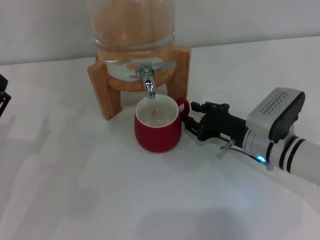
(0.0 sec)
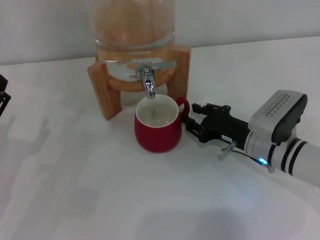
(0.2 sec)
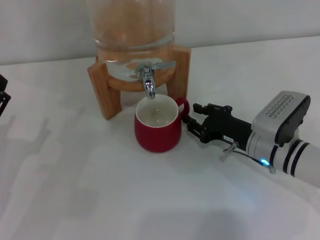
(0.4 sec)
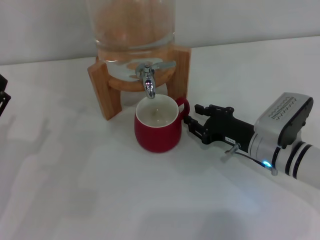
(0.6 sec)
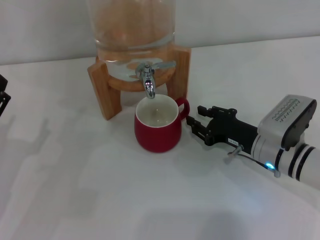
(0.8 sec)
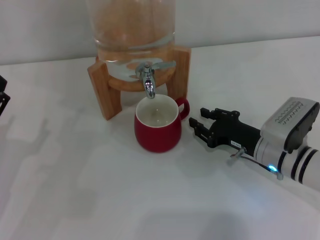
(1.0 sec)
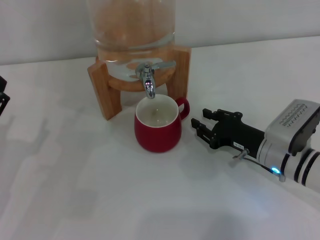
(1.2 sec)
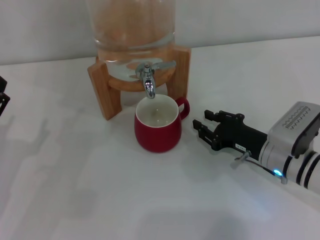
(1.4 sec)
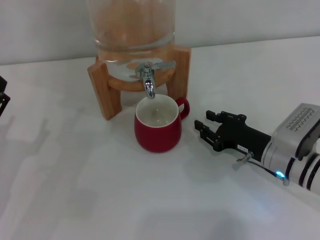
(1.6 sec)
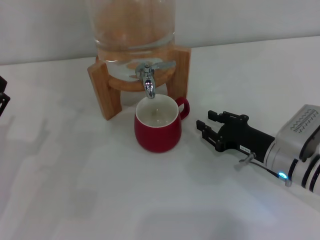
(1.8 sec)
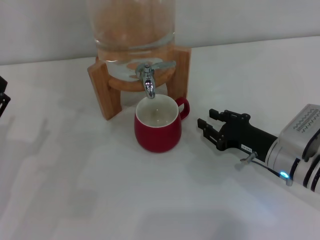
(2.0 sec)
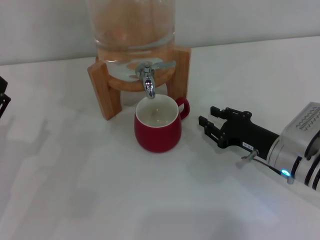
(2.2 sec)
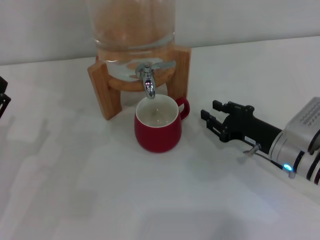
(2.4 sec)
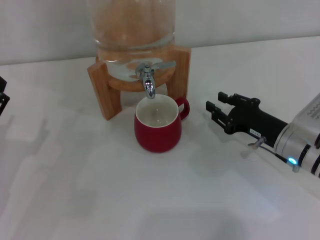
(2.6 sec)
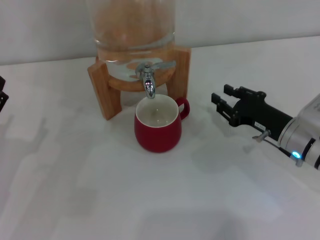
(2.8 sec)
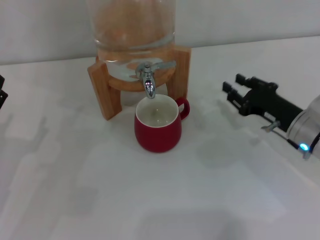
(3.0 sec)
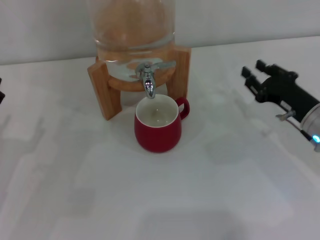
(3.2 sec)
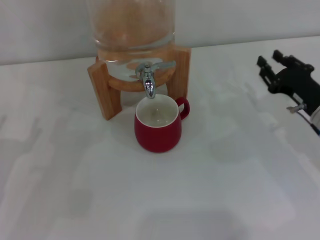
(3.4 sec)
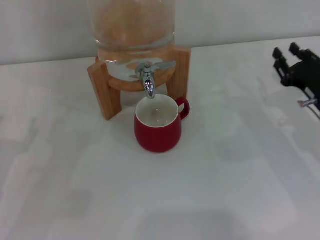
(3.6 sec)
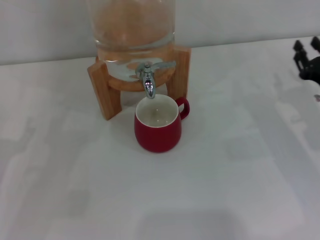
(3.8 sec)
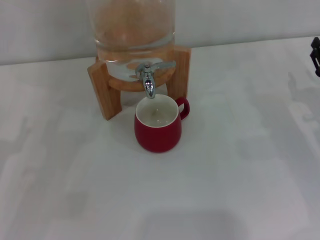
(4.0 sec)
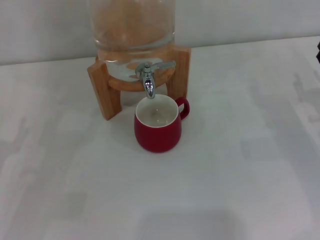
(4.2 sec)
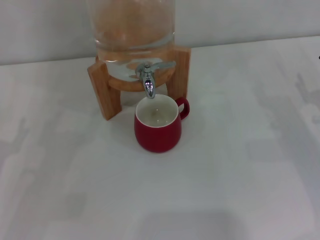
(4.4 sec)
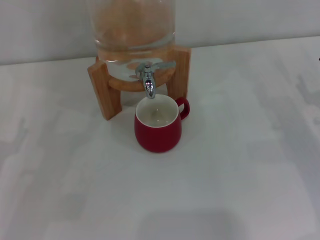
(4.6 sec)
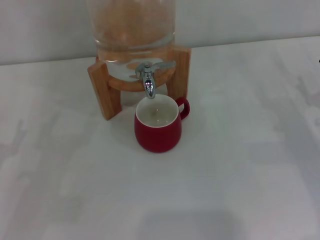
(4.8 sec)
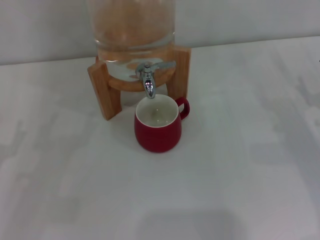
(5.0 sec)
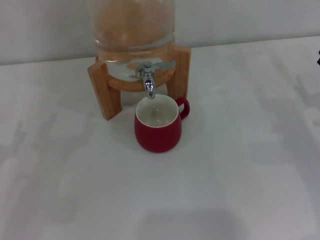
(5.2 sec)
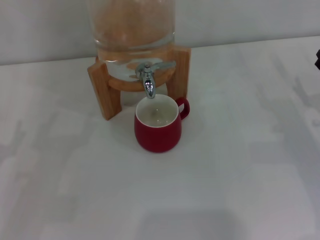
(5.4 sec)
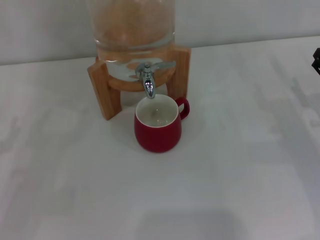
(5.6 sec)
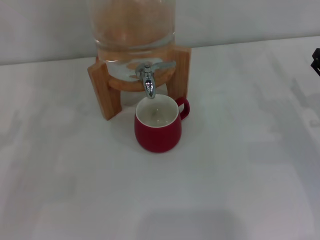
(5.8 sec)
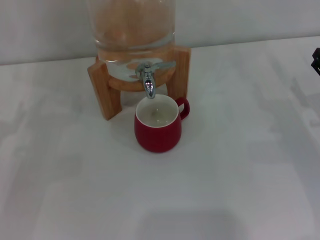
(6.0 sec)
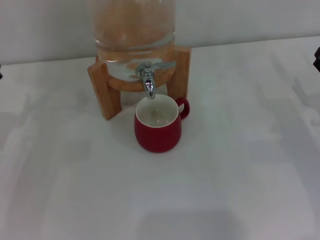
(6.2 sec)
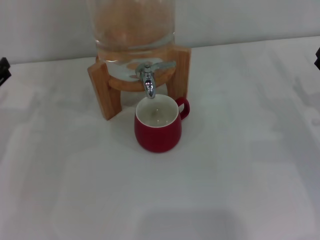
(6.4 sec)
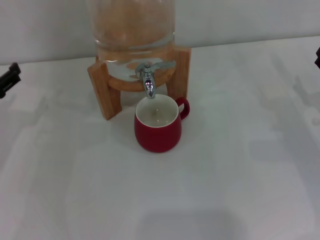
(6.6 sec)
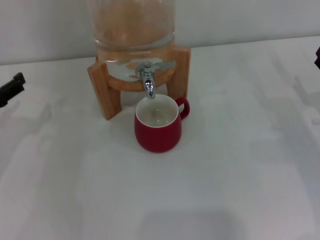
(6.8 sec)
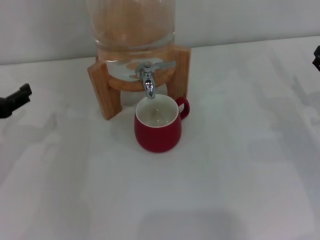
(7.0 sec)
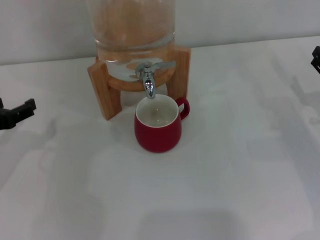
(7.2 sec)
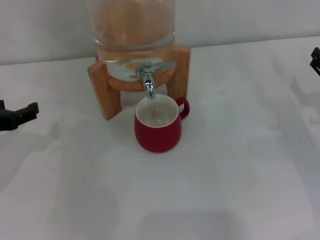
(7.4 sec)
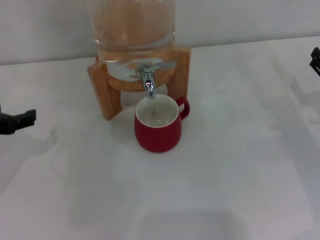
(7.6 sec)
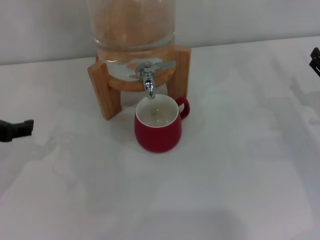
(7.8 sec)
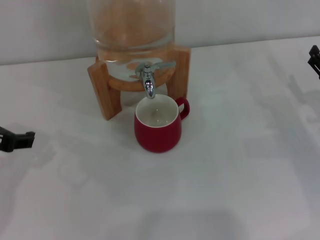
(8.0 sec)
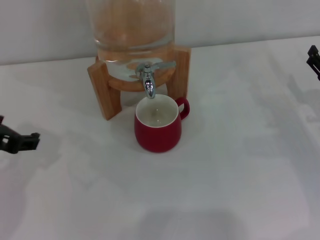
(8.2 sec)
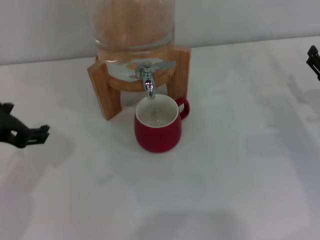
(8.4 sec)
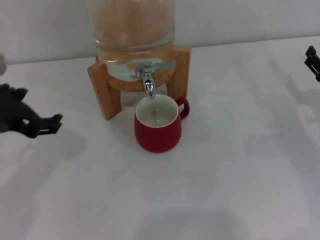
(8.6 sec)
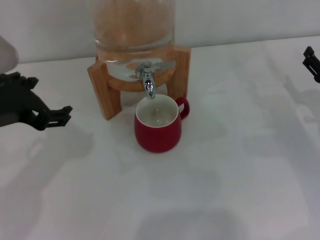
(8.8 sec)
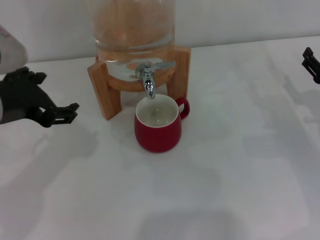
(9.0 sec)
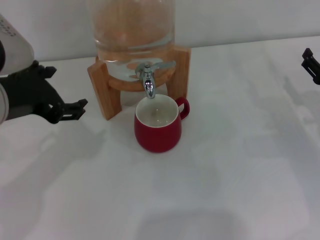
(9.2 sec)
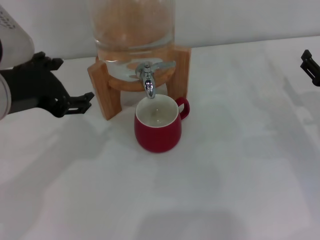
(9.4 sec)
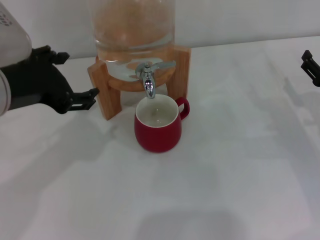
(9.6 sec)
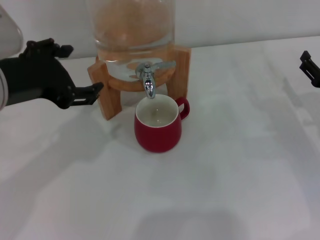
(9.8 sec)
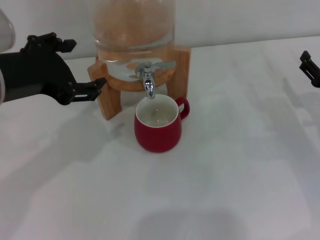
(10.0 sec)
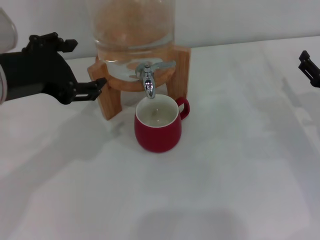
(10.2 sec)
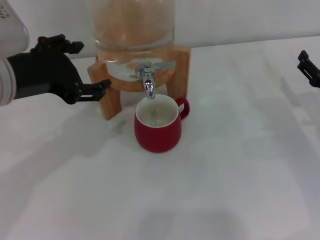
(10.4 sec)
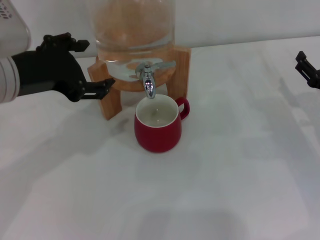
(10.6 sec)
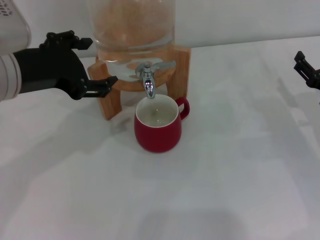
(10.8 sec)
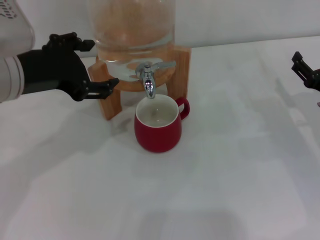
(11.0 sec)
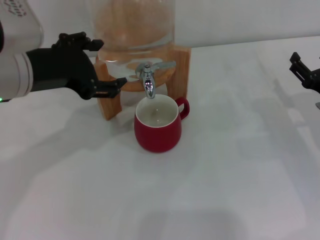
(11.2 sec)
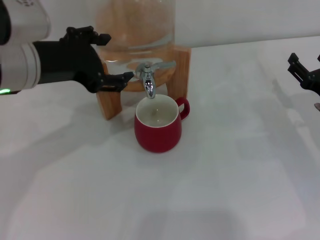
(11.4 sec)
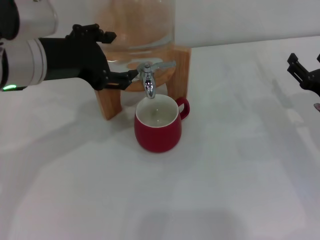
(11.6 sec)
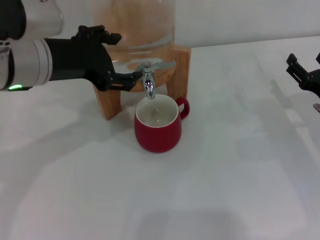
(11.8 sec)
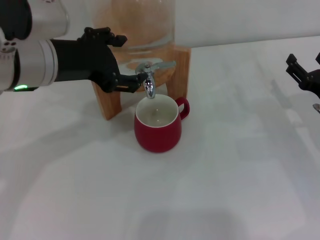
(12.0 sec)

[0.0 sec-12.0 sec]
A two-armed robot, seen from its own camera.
Task of the whole recording: the right gripper pick up the red cup and place it horizontally under the faucet, the left gripper turn on the faucet to fill the cup, and then turn off the faucet.
0.0 sec to 1.6 sec: The grippers stay close to where they were, moving slightly.
1.6 sec to 3.0 sec: The right gripper ends up about 5 cm from where it was.
3.0 sec to 4.4 sec: The right gripper heads to the right, covering approximately 10 cm.
6.0 sec to 7.6 sec: The left gripper travels upward by about 10 cm.
7.6 sec to 9.0 sec: The left gripper goes roughly 10 cm to the right and upward.
9.0 sec to 10.4 sec: There are only small adjustments of the grippers.
10.4 sec to 12.0 sec: The left gripper changes place by roughly 5 cm.

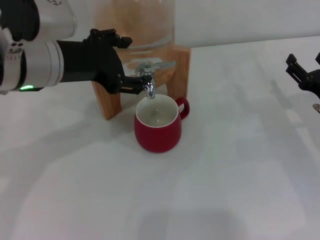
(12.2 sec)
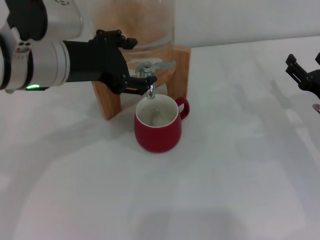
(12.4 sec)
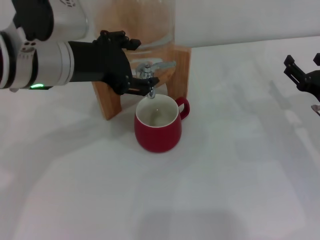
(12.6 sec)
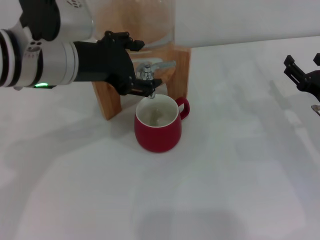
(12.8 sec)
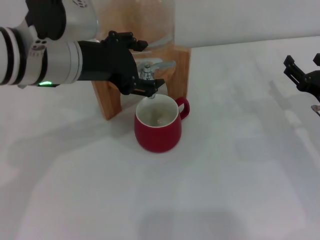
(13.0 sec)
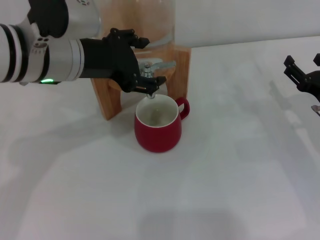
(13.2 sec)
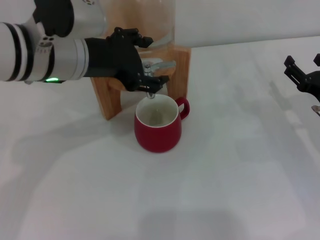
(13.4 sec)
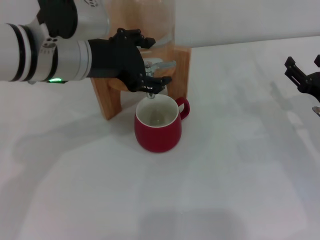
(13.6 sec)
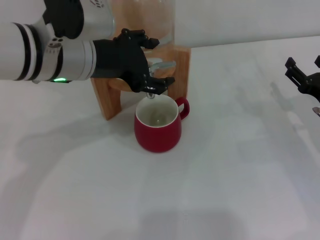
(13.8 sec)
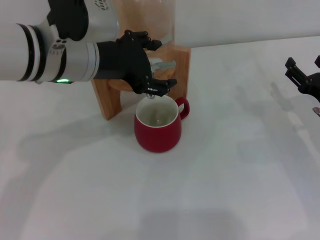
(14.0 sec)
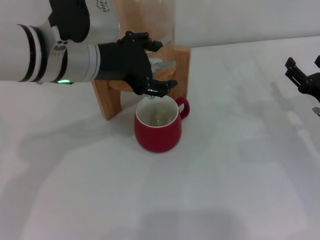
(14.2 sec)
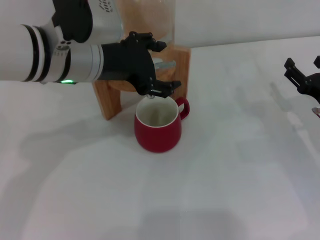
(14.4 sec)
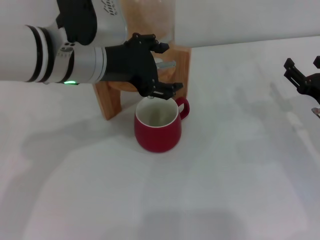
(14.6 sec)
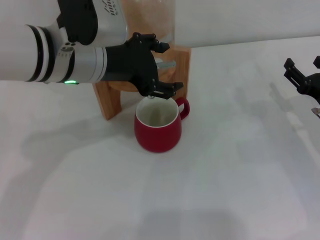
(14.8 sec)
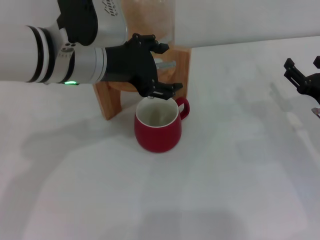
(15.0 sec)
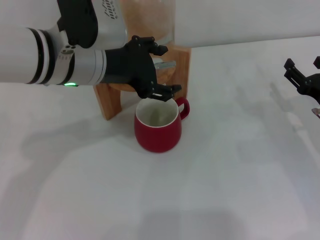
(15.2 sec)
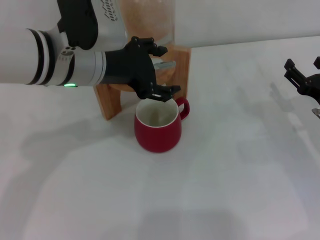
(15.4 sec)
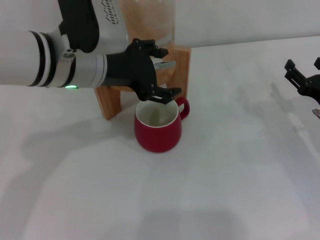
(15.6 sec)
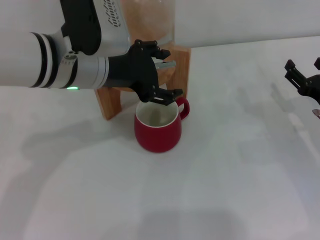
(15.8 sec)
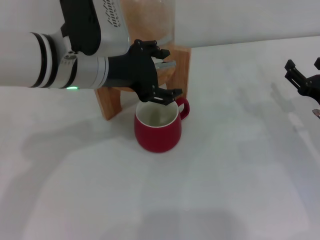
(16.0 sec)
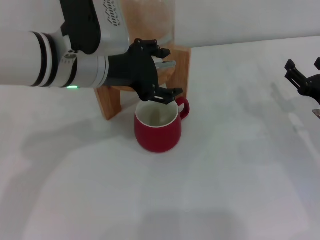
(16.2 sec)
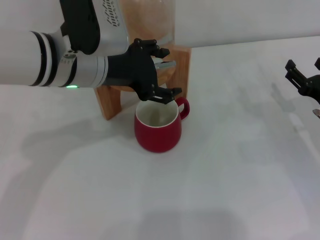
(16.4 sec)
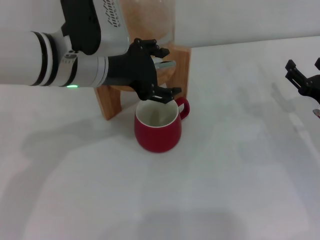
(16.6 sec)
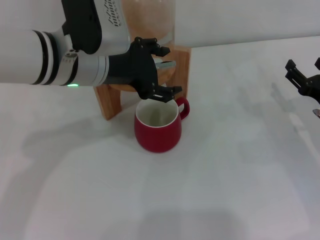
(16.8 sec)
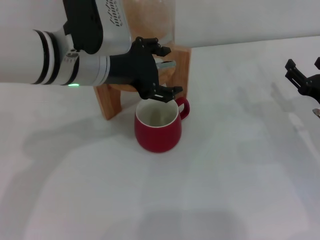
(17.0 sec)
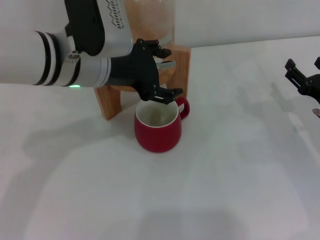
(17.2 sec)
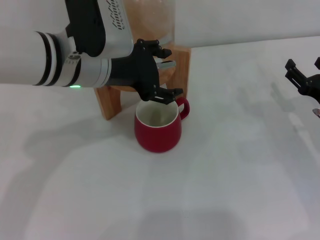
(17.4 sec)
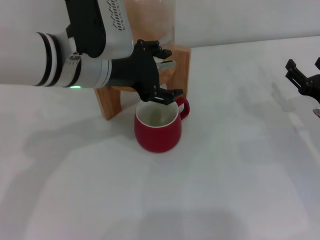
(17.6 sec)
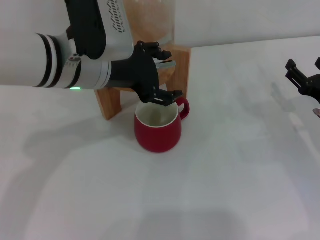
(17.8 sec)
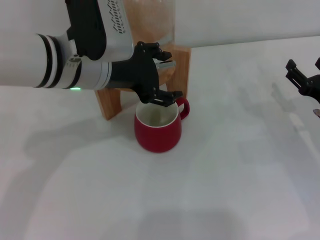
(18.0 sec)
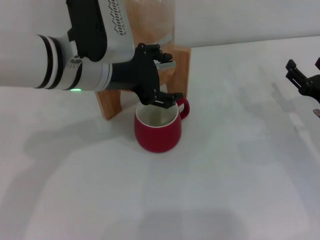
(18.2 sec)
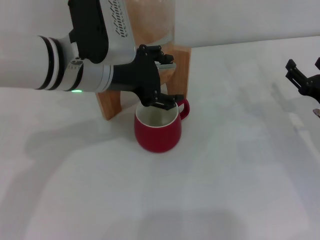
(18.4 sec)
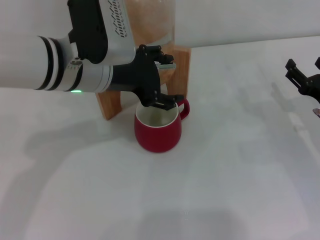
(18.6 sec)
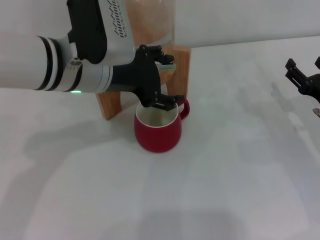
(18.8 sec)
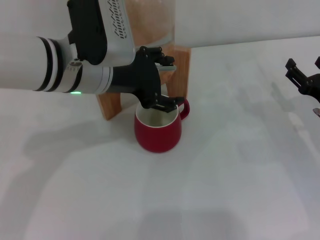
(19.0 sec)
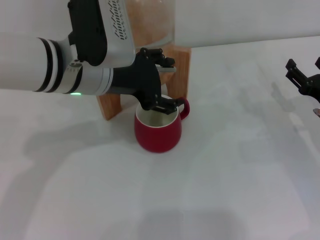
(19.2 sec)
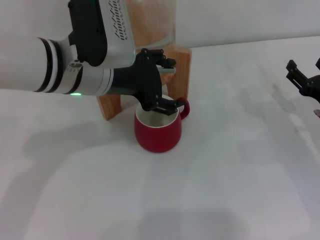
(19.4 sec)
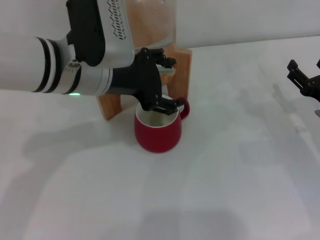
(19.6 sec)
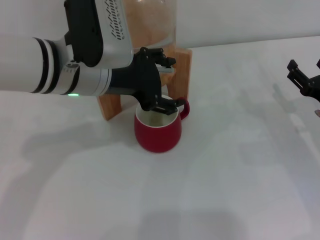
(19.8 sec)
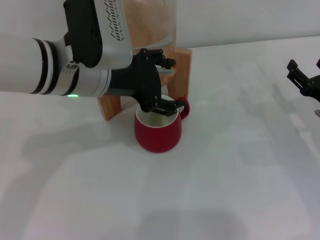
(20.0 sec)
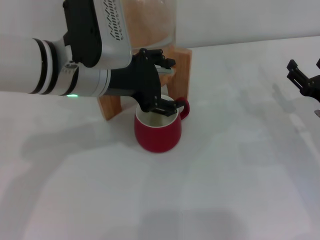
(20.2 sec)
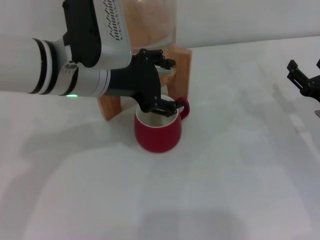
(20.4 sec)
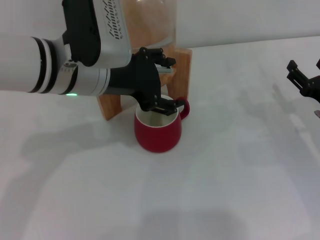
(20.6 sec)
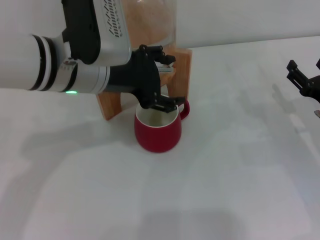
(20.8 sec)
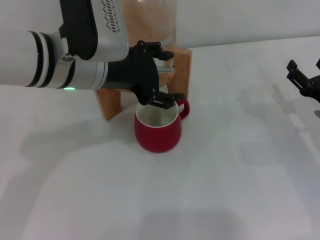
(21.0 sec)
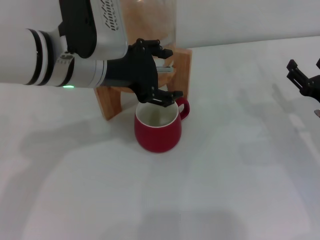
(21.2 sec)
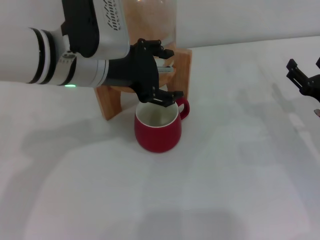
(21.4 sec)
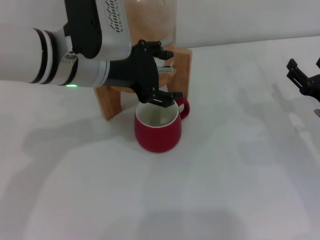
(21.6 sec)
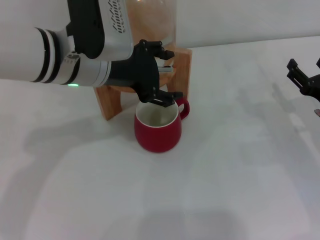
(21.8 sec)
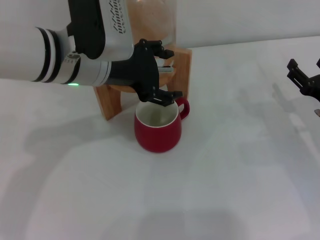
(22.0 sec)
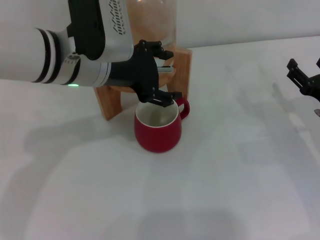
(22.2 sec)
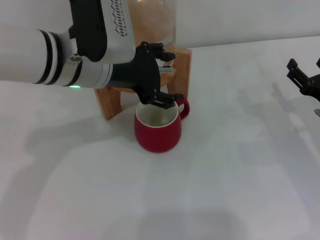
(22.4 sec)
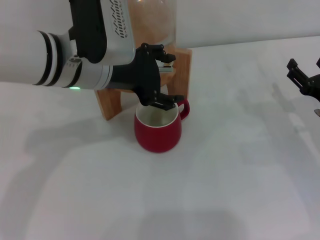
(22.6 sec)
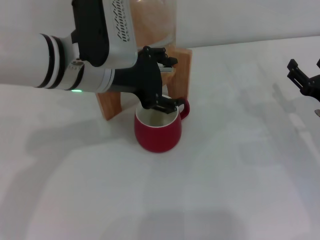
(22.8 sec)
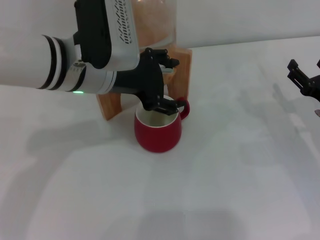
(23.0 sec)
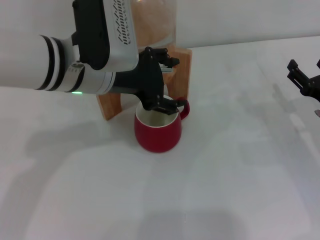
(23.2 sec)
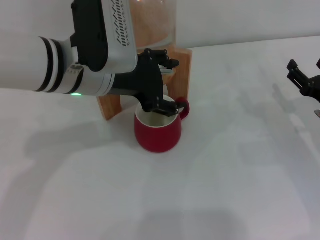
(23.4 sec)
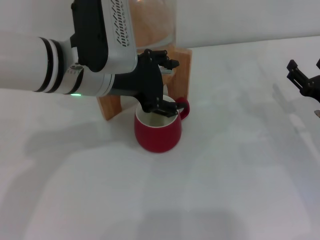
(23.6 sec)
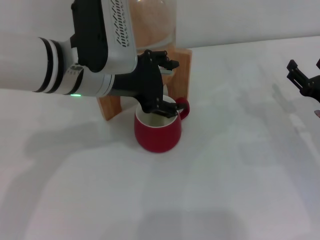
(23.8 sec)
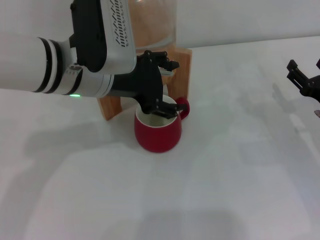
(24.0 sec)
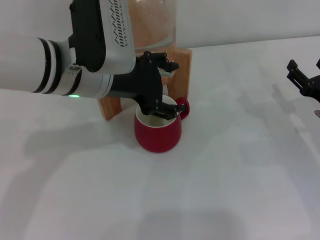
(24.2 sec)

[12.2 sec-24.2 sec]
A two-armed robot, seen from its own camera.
Task of the whole recording: the right gripper pick up the red cup and place it horizontally under the faucet, the left gripper turn on the faucet to fill the cup, and then turn off the faucet.
12.2 sec to 13.8 sec: The grippers move only a little.
13.8 sec to 15.2 sec: Both grippers stay about where they are.
15.2 sec to 18.2 sec: Both grippers stay put.
18.2 sec to 19.8 sec: The two grippers keep their place.
19.8 sec to 24.2 sec: The two grippers keep their place.
